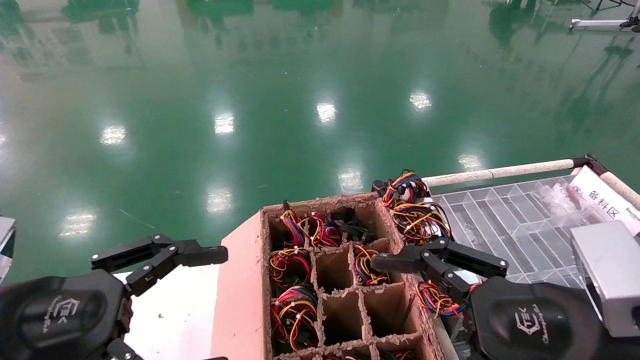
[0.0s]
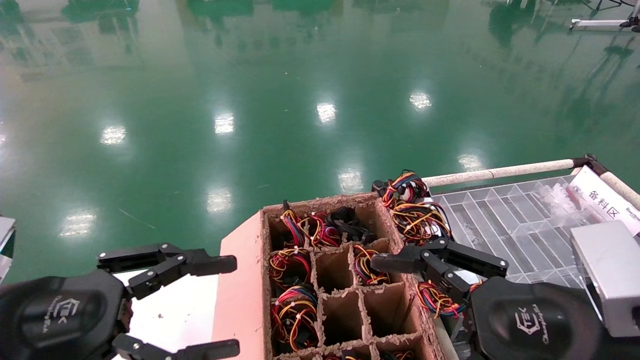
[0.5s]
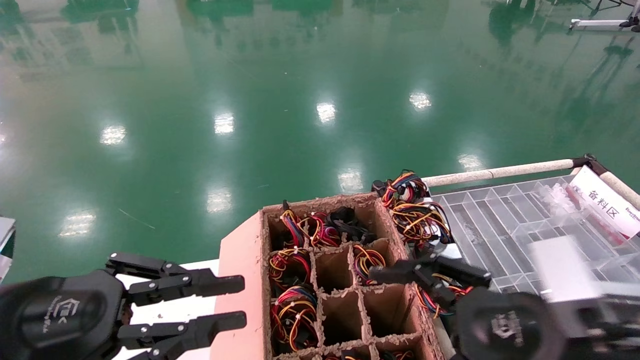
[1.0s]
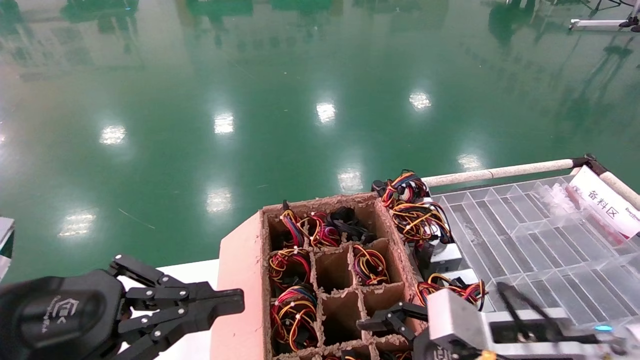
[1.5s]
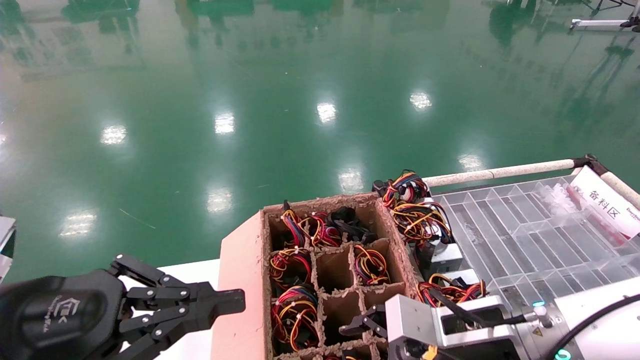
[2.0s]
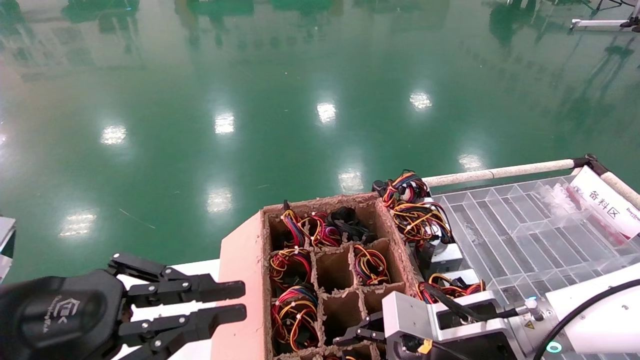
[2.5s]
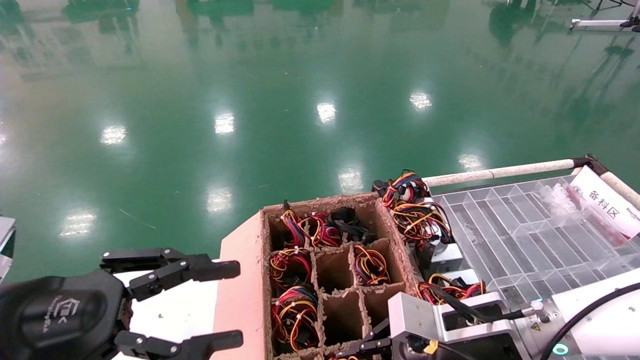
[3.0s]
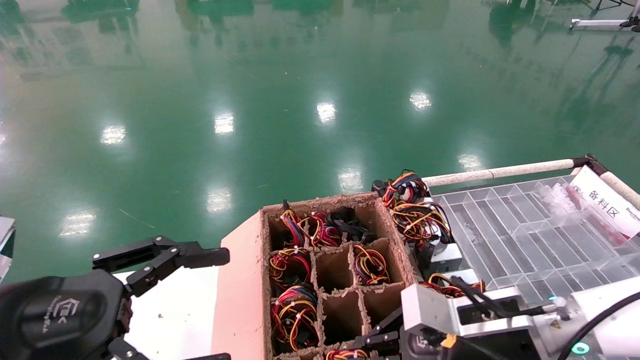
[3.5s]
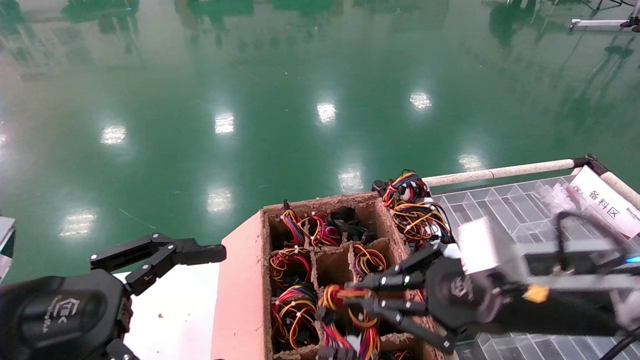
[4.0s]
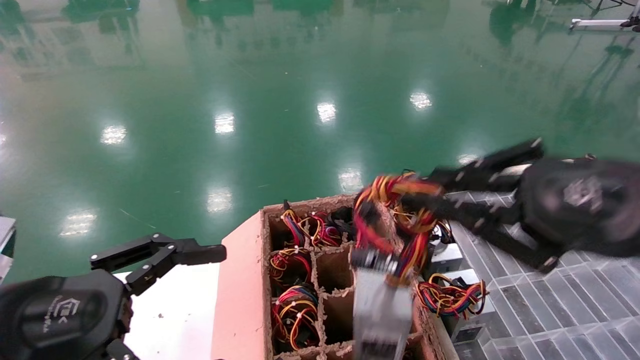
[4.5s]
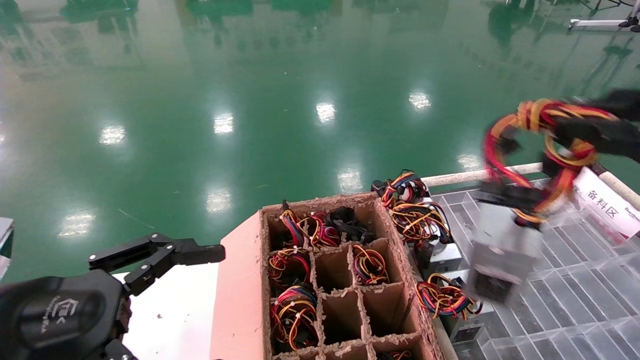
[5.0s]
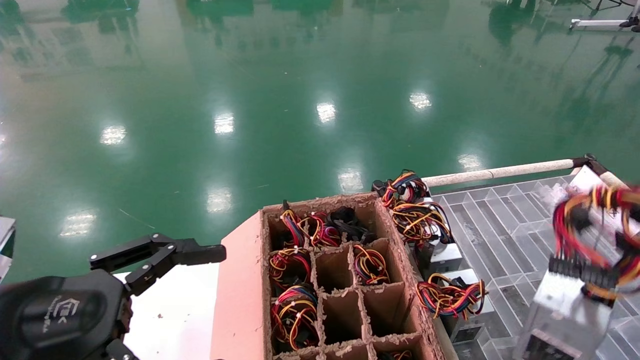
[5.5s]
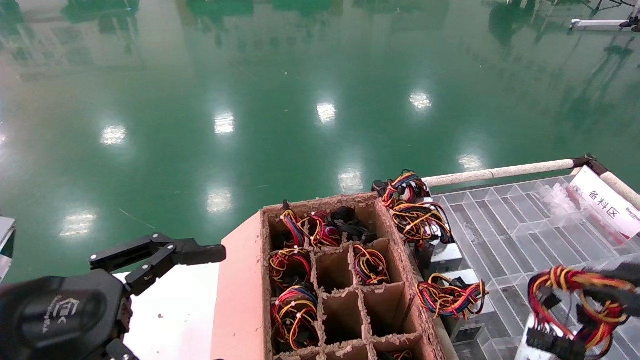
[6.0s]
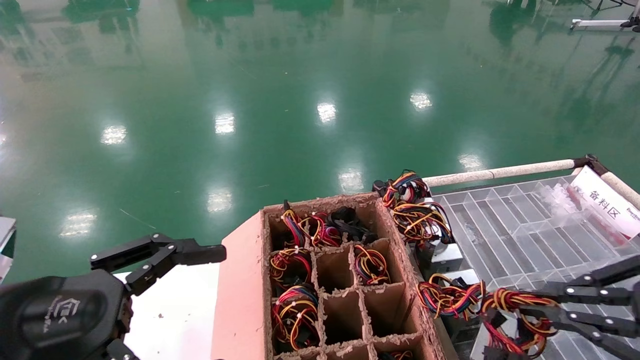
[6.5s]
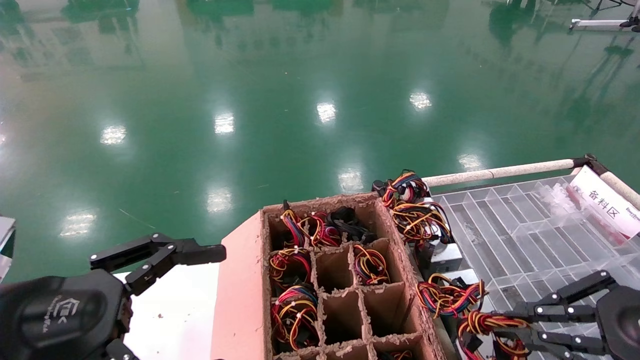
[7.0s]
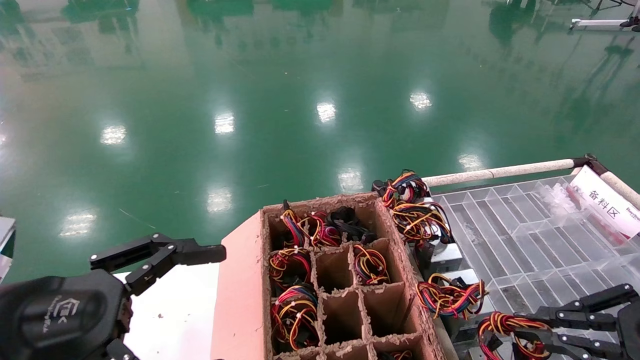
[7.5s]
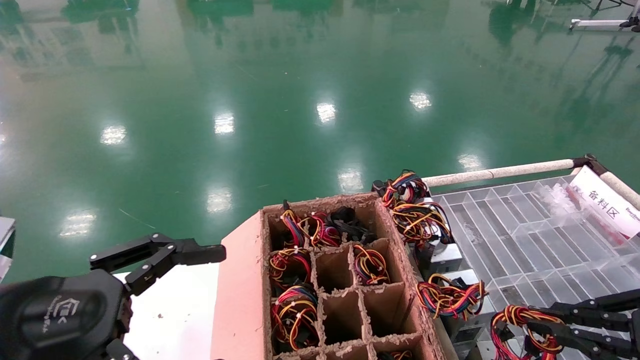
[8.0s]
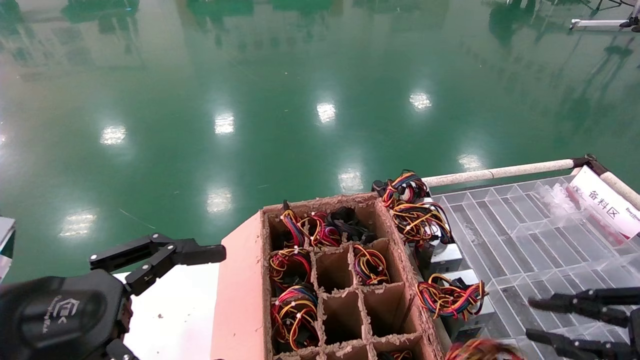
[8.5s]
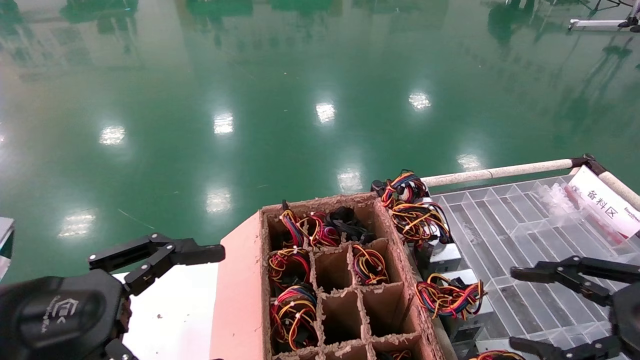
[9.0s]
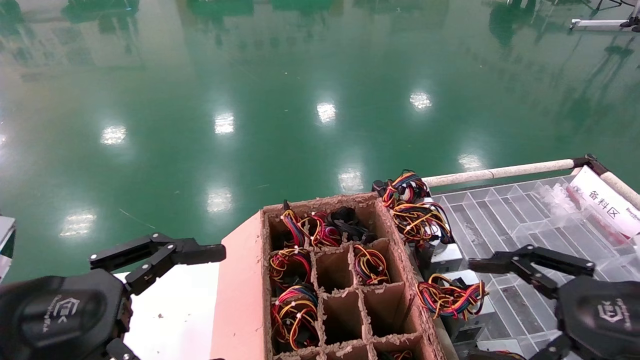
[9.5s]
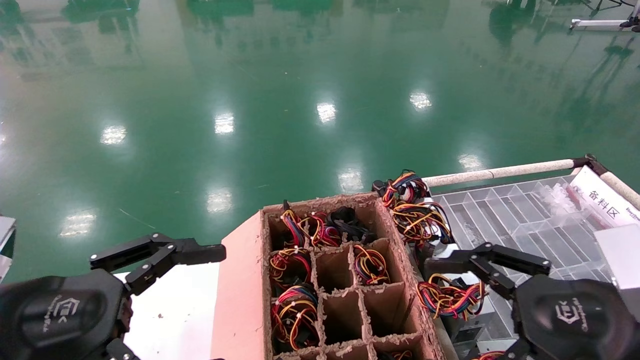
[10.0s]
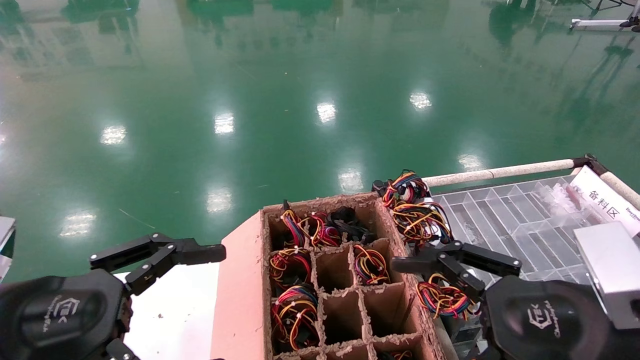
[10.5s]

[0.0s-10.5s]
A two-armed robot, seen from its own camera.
Step, 2.0s to 3.0s: Grab and lift the power supply from the large box.
Step, 3.5s to 8.0s: Place the power supply on the operating table.
0.0s to 2.0s: The left gripper closes its fingers, while the right gripper travels forward and downward by some 15 cm.
2.0s to 4.0s: The right gripper goes approximately 10 cm upward, and closes, while the left gripper opens.
4.0s to 6.5s: The right gripper is displaced to the right and backward by roughly 20 cm.
6.5s to 8.5s: The right gripper moves downward, roughly 5 cm.
8.5s to 10.5s: The right gripper shifts some 15 cm to the left, and opens up.
